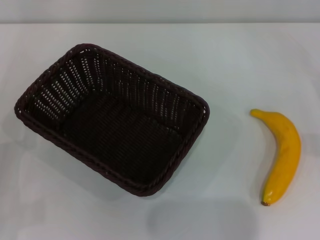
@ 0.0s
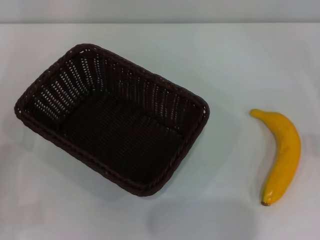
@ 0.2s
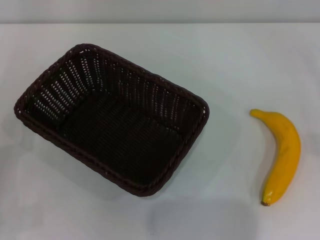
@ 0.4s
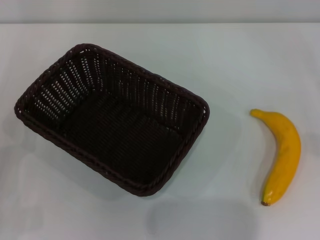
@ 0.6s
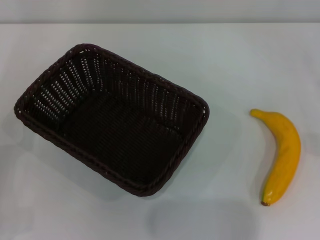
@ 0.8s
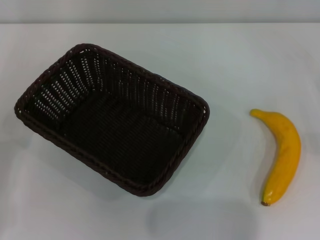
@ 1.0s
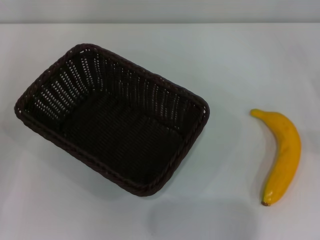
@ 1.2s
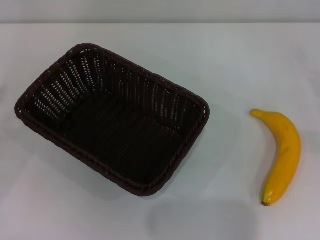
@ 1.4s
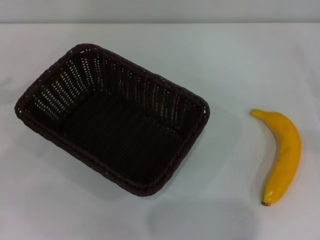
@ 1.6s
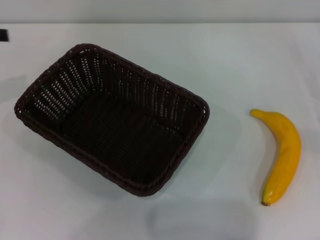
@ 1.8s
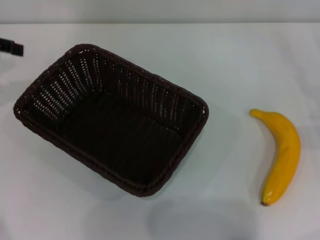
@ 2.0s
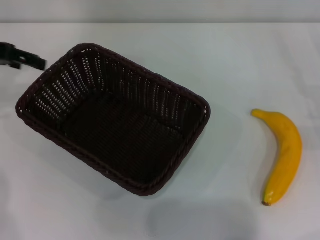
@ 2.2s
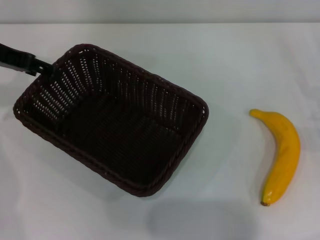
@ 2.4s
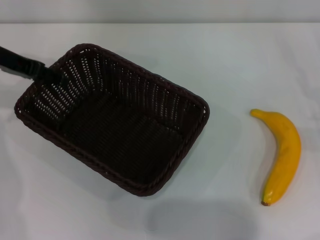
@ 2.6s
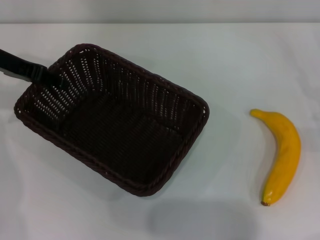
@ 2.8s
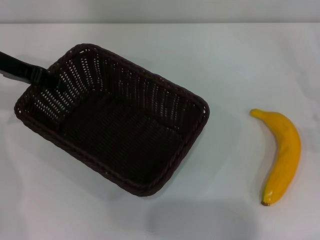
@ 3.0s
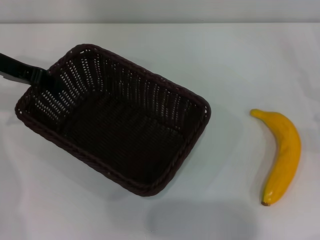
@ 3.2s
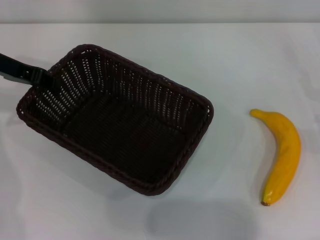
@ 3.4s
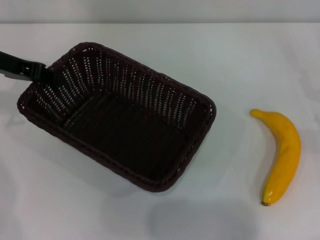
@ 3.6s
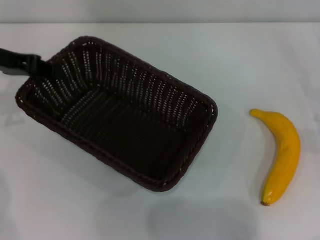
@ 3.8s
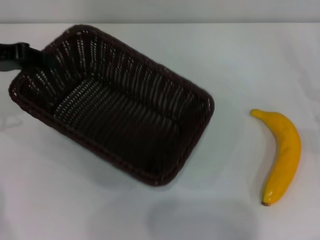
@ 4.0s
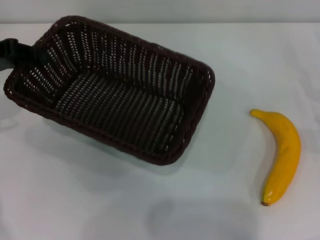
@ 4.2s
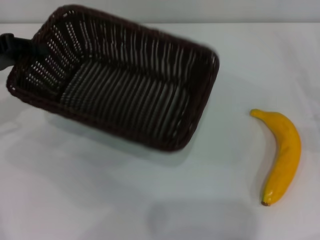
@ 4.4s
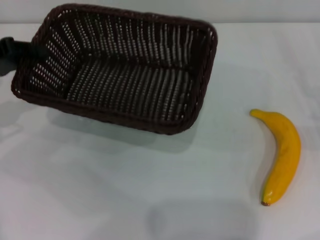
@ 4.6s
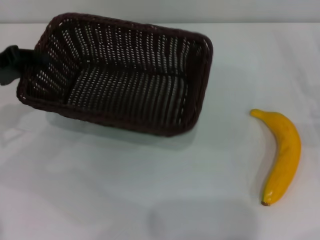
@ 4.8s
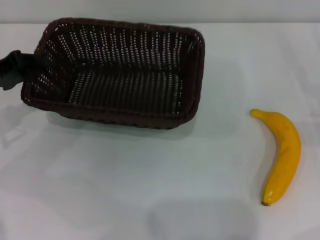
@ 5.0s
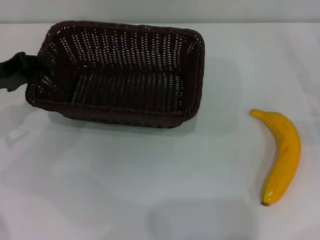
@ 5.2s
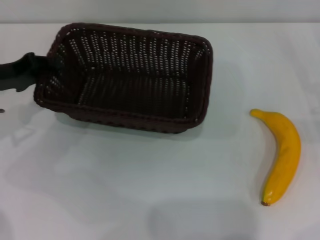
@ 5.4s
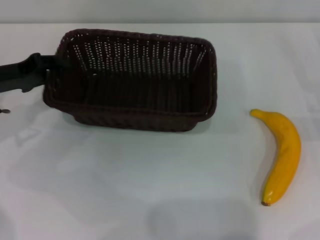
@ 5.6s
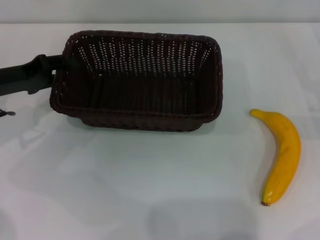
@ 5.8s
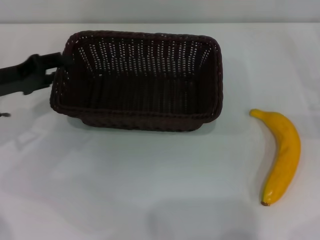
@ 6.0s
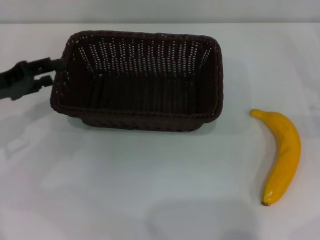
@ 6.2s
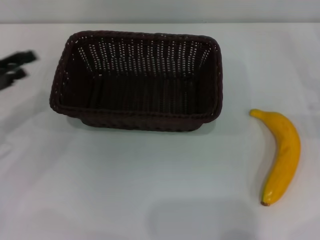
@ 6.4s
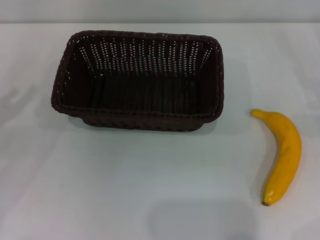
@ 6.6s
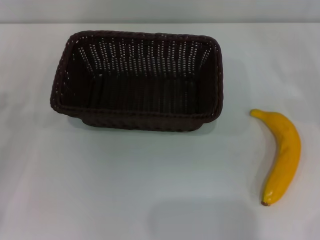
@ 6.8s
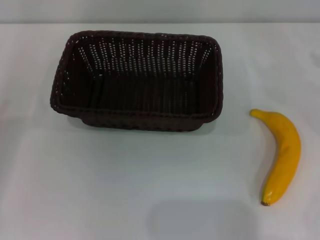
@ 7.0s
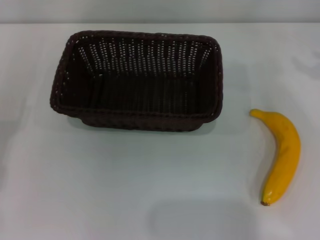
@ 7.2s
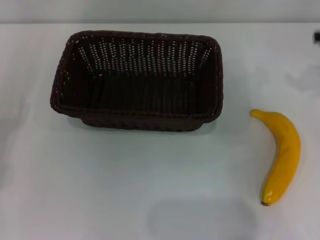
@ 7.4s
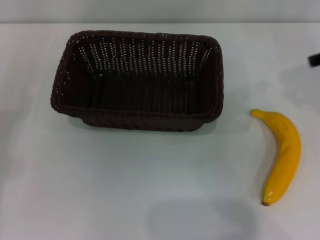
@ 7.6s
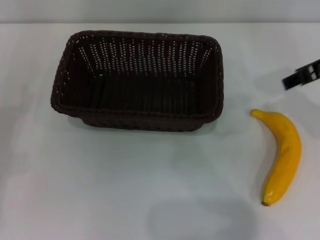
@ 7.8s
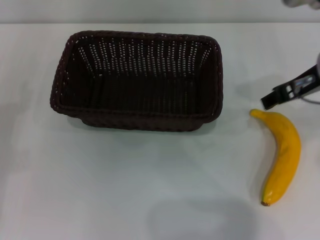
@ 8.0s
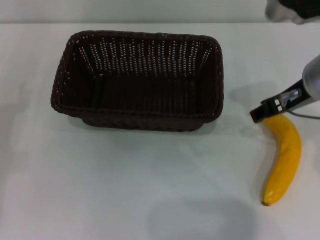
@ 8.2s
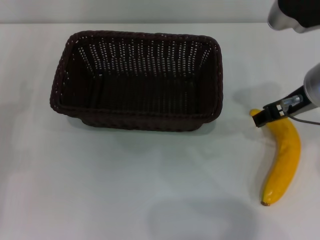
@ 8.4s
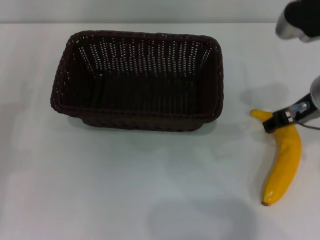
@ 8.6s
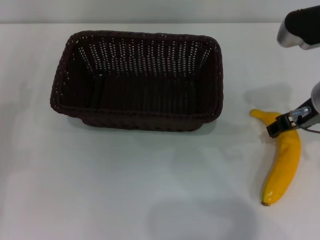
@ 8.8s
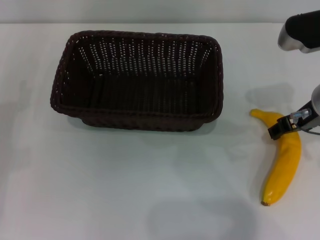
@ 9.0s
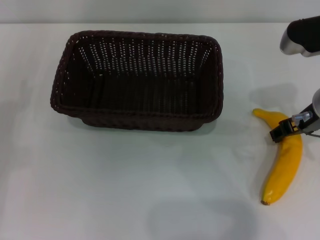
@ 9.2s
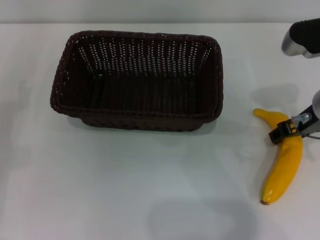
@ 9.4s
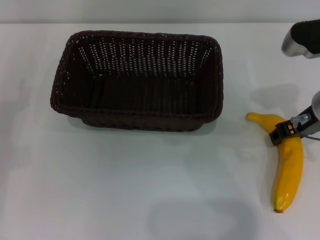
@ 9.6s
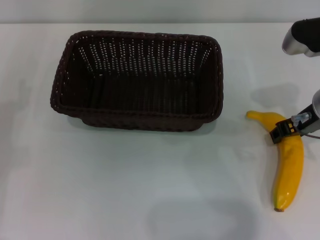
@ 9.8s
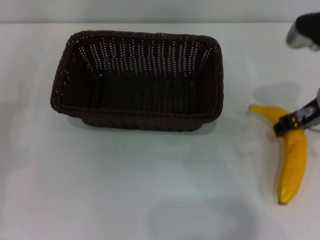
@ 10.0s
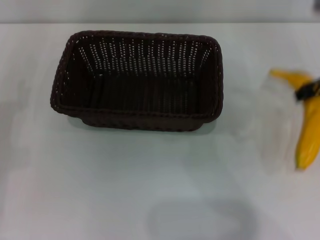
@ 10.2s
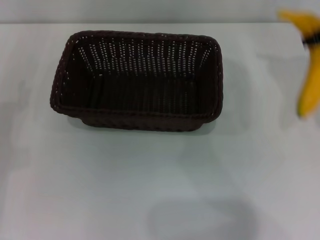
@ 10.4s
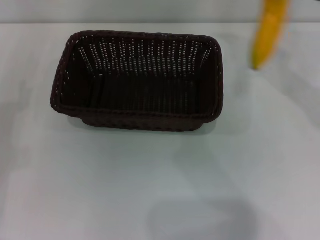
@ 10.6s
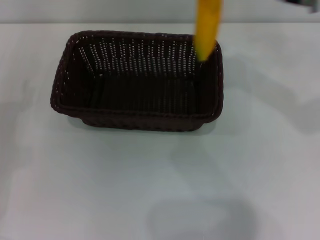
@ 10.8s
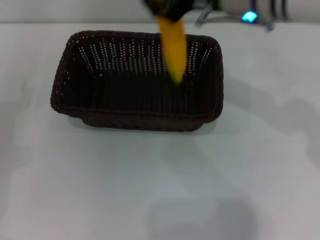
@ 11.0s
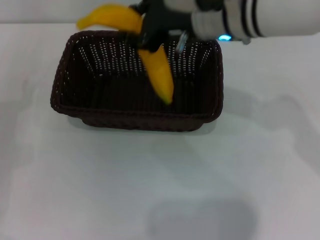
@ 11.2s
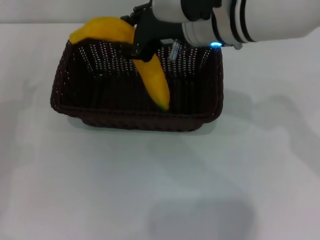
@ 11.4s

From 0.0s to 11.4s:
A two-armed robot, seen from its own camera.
Step, from 0.0s to 4.0s: Pick up the dark basket with the left gripper.
Step, from 4.4s to 6.2s: Place the dark basket in the center of view with the left gripper.
Step, from 6.4s to 10.2s: Pick up the banana with the right gripper.
From 1.4s to 2.8s: The left gripper shifts roughly 20 cm forward and to the right.
From 2.8s to 4.2s: The left gripper ends up some 5 cm from where it was, and closes.
From 4.2s to 5.6s: The left gripper goes about 5 cm downward.
From 5.6s to 7.2s: The left gripper shifts some 15 cm backward, to the left and downward, and opens up. The right gripper goes about 15 cm upward.
From 7.2s to 8.6s: The right gripper shifts about 20 cm to the left.
From 8.6s to 10.0s: The right gripper closes up.
From 10.0s to 11.4s: The right gripper shifts approximately 15 cm to the left.

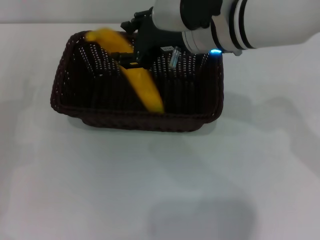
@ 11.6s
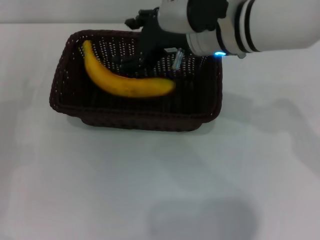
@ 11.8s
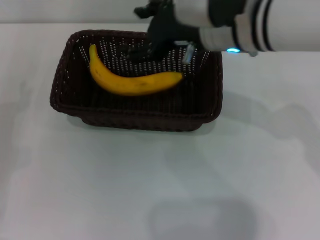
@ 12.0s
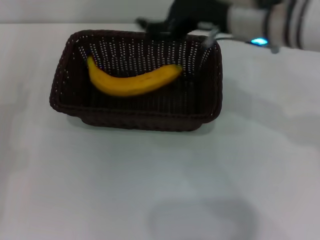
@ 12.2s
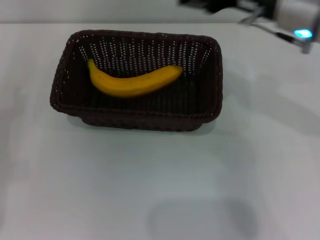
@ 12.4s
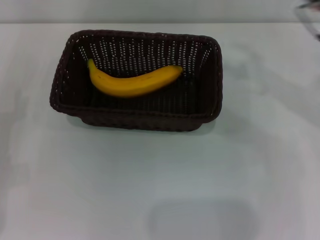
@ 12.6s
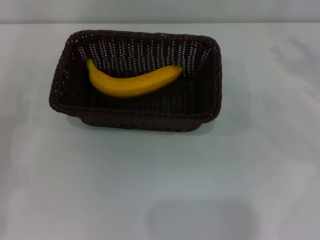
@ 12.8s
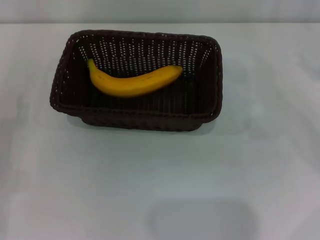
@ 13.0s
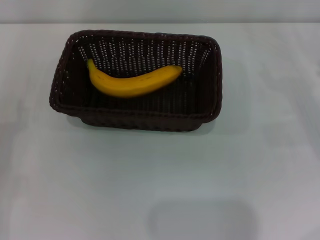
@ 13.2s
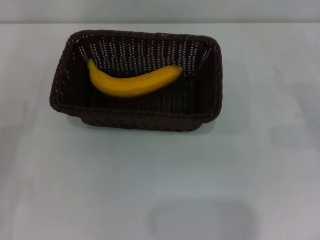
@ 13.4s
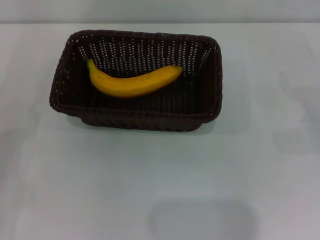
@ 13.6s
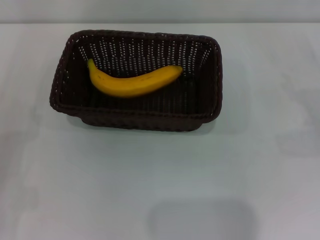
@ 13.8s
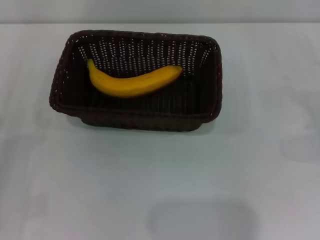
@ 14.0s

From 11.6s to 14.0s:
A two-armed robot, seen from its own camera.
From 11.6s to 12.8s: The right gripper travels to the right by approximately 25 cm, and opens its fingers.

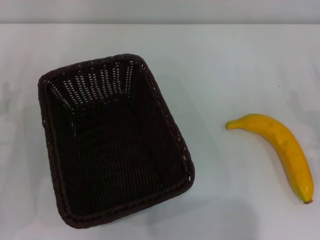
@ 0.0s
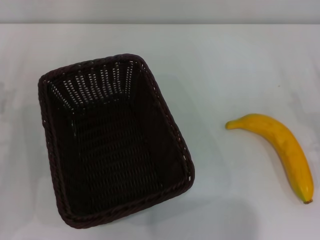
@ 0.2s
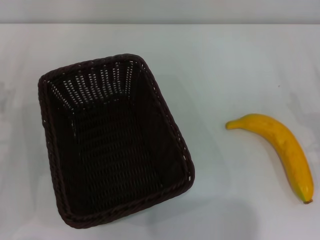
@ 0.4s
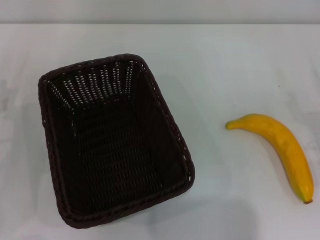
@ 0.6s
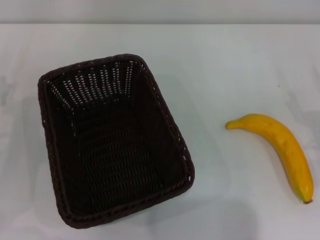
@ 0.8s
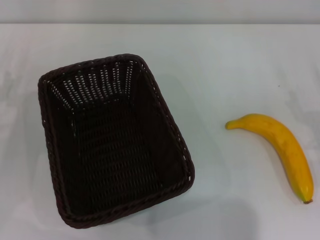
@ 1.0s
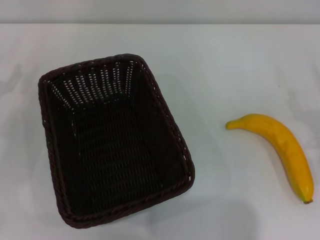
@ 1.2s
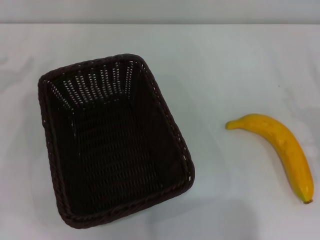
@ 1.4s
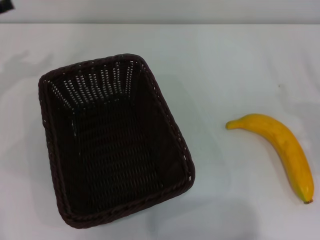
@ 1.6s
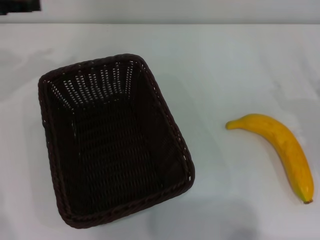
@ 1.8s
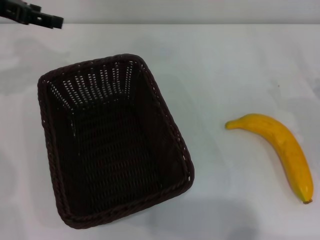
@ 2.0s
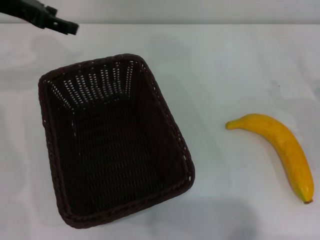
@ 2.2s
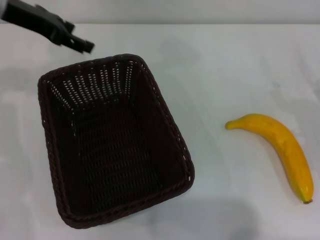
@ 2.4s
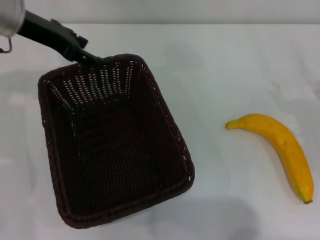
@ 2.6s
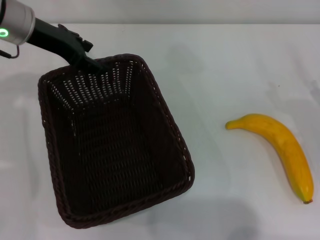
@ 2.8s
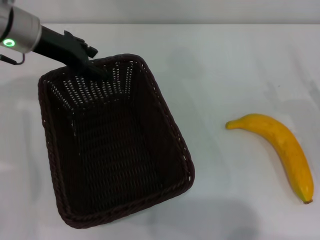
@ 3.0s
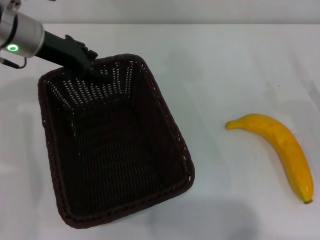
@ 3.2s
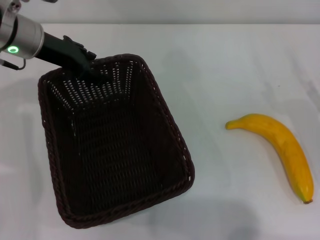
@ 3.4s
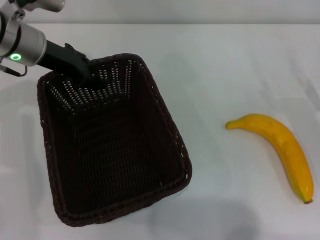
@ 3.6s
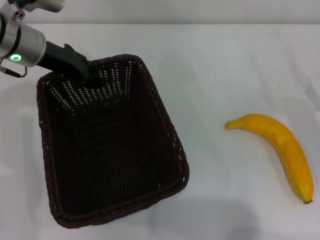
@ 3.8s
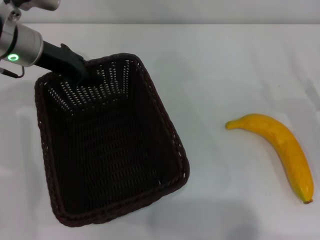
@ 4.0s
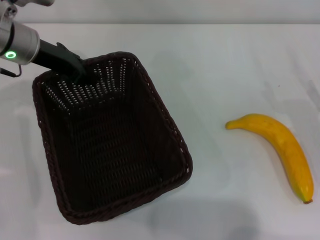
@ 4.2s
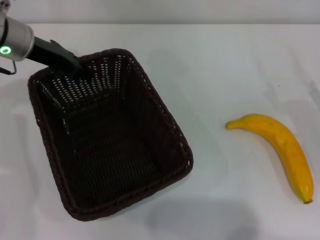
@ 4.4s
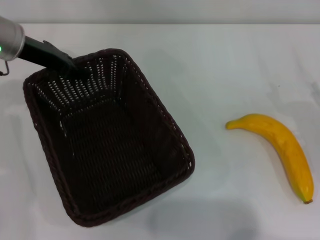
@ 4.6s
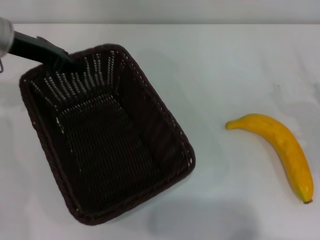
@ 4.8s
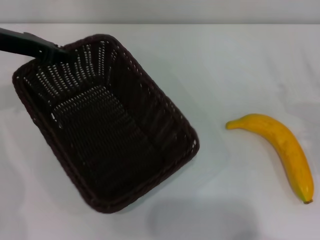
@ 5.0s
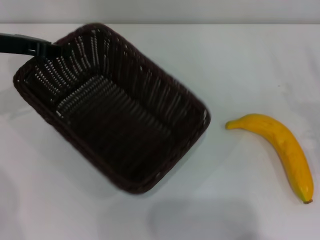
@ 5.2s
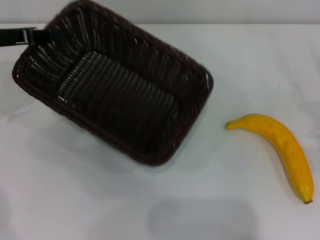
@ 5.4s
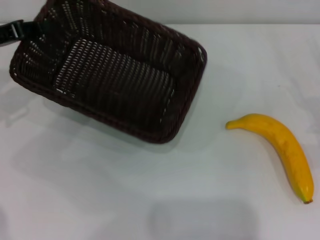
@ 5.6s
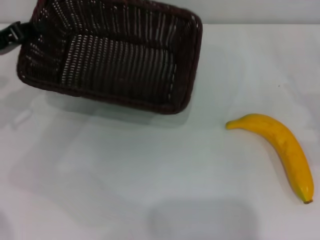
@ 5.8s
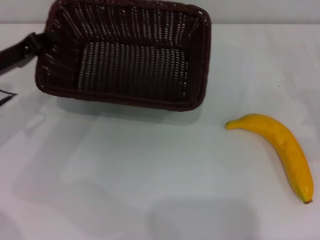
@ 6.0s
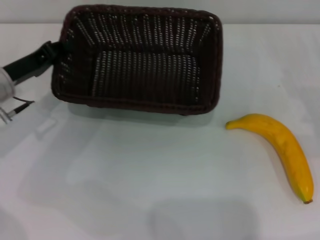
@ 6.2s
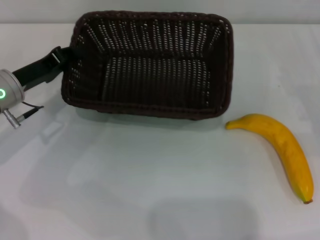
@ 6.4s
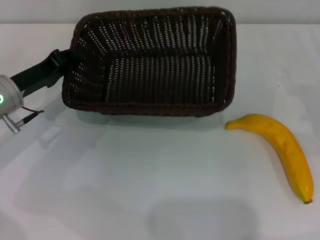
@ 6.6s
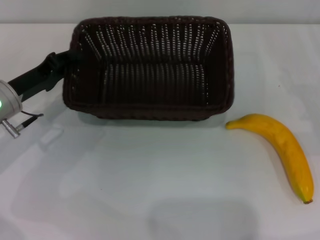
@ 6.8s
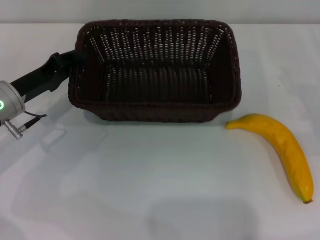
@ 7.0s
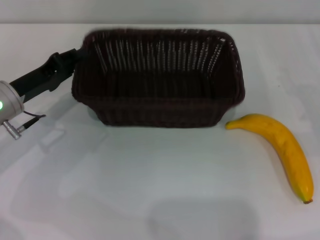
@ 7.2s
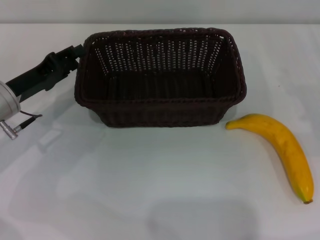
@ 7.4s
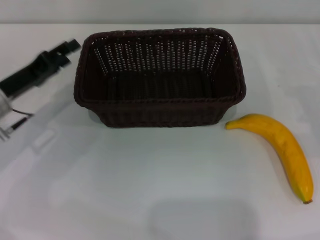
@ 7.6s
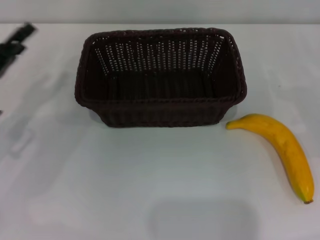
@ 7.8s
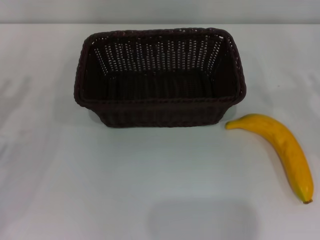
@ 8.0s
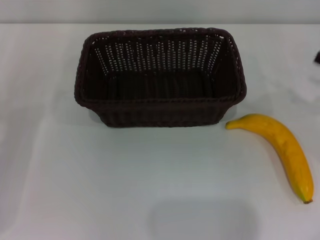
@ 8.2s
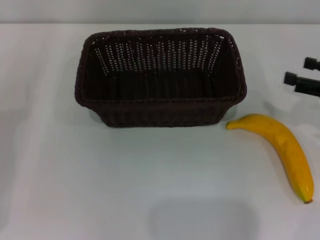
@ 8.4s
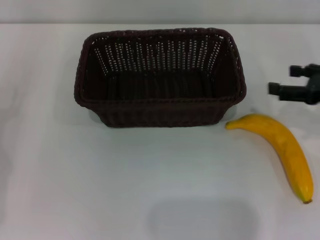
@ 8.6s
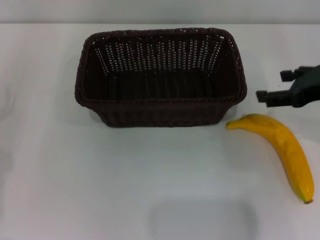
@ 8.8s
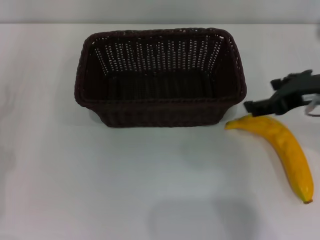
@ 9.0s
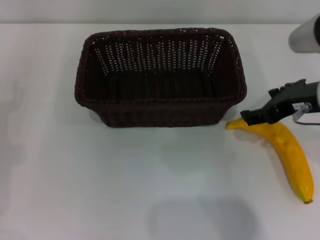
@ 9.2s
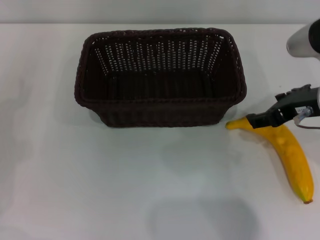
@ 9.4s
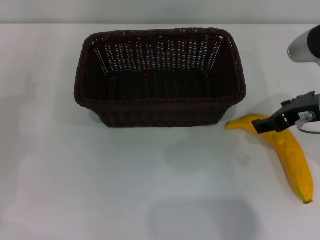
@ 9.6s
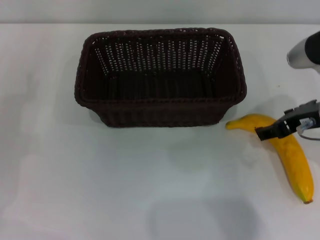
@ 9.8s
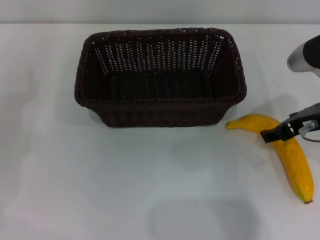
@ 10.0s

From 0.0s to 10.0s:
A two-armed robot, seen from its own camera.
Step, from 0.0s to 5.2s: Pick up the dark basket with the left gripper.
Step, from 5.6s to 7.6s: Place the dark basket in the center of view with the left gripper.
From 1.4s to 2.8s: The left gripper goes roughly 20 cm to the right, forward and upward.
From 2.8s to 4.2s: The left gripper closes its fingers.
From 4.2s to 5.8s: The left gripper moves to the left and backward, approximately 10 cm.
From 5.8s to 7.2s: The left gripper is displaced downward and to the right by roughly 10 cm.
From 7.2s to 8.6s: The left gripper moves to the left and backward, roughly 15 cm, and opens its fingers, while the right gripper moves upward and to the left, roughly 10 cm.
From 8.6s to 10.0s: The right gripper moves to the left, roughly 10 cm.
